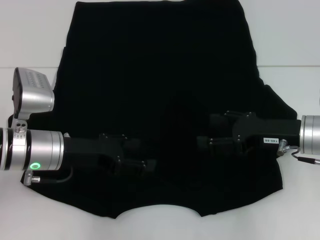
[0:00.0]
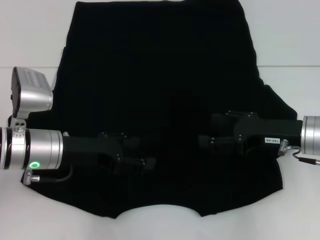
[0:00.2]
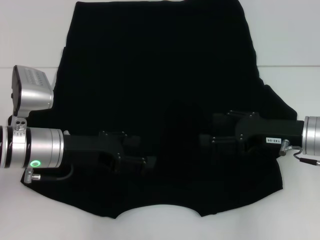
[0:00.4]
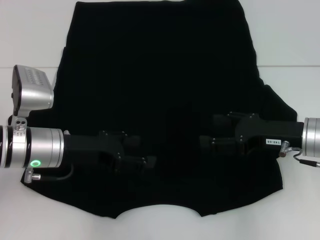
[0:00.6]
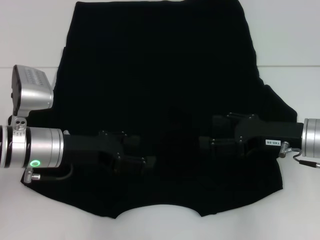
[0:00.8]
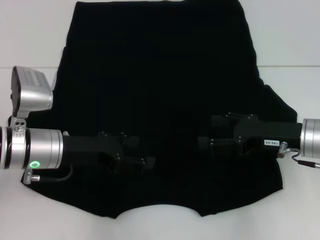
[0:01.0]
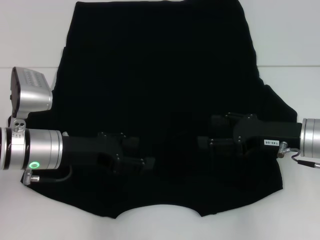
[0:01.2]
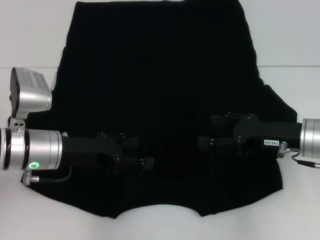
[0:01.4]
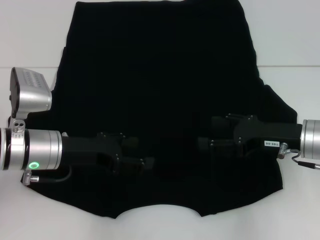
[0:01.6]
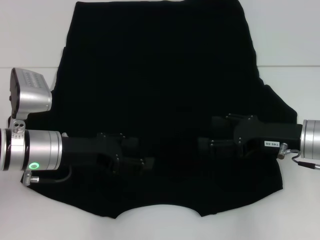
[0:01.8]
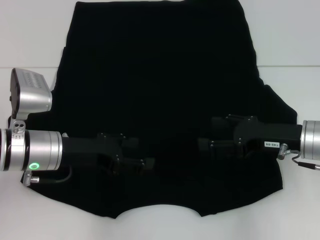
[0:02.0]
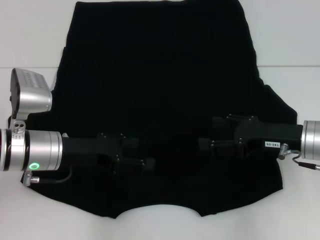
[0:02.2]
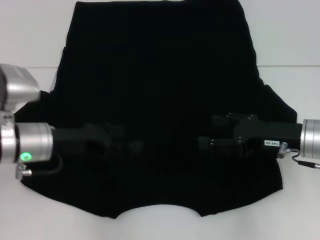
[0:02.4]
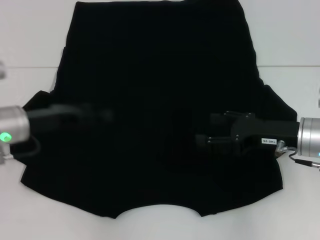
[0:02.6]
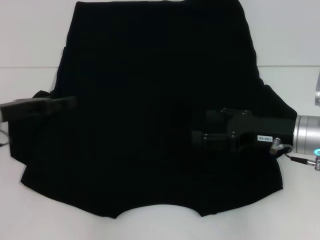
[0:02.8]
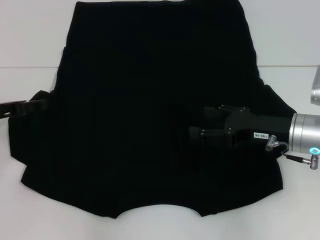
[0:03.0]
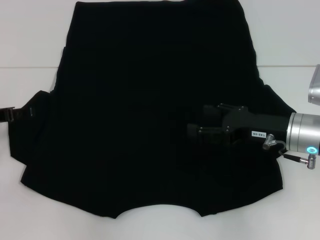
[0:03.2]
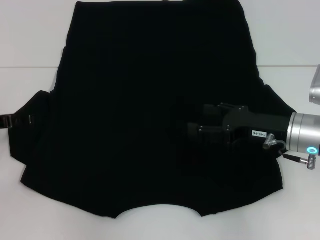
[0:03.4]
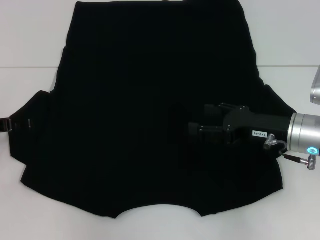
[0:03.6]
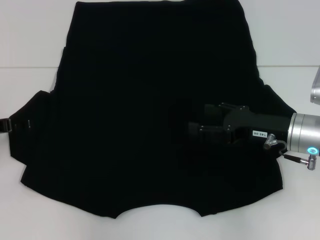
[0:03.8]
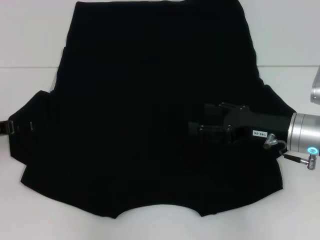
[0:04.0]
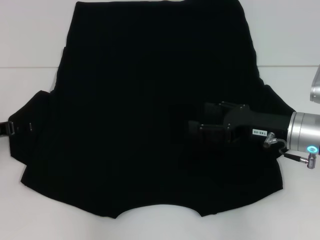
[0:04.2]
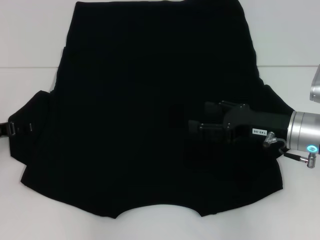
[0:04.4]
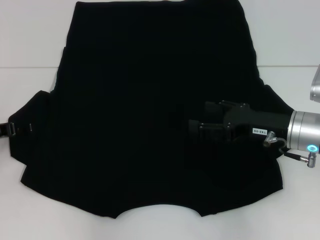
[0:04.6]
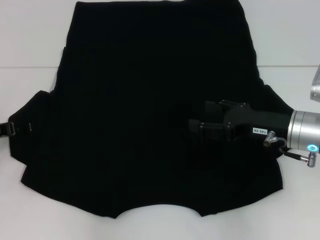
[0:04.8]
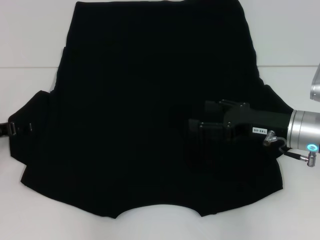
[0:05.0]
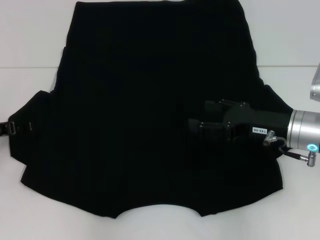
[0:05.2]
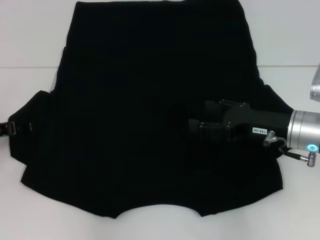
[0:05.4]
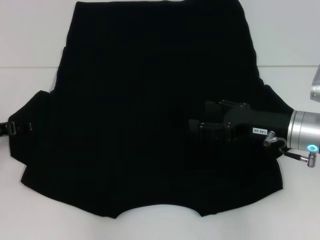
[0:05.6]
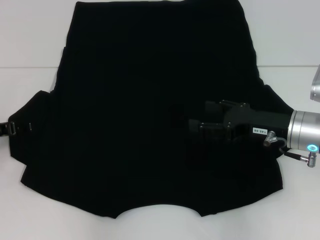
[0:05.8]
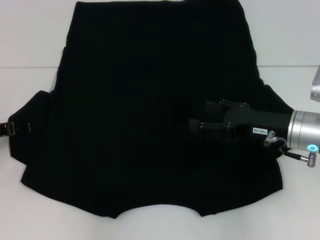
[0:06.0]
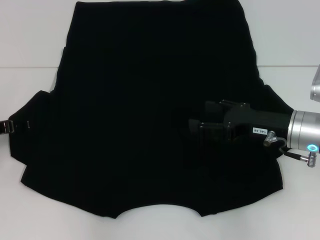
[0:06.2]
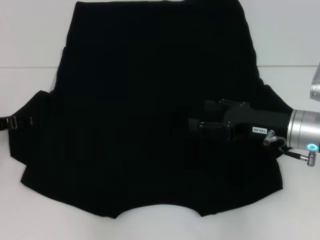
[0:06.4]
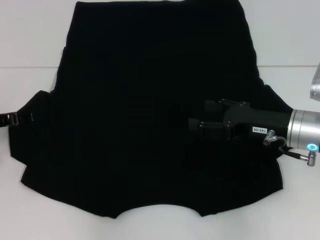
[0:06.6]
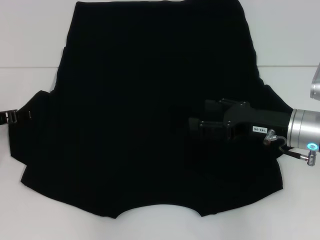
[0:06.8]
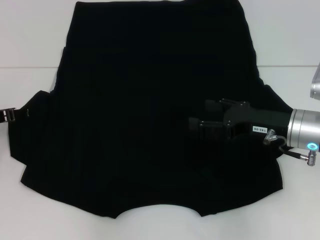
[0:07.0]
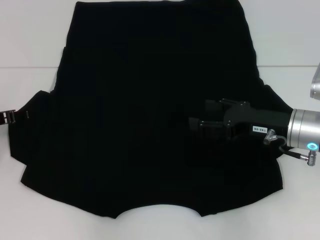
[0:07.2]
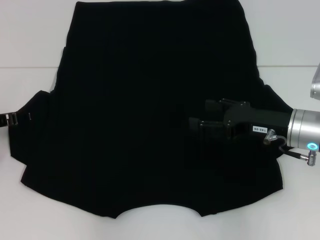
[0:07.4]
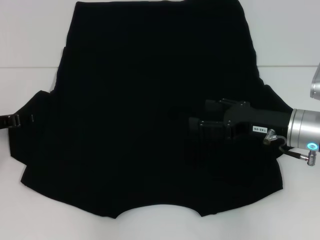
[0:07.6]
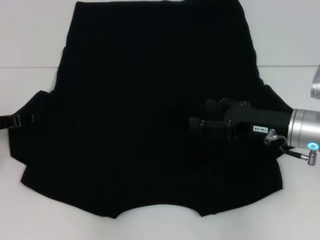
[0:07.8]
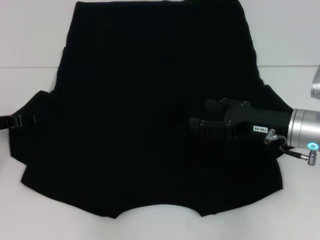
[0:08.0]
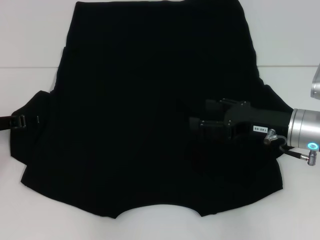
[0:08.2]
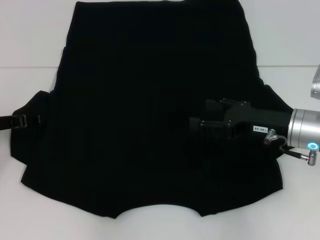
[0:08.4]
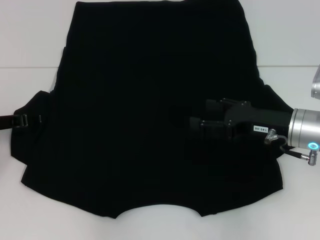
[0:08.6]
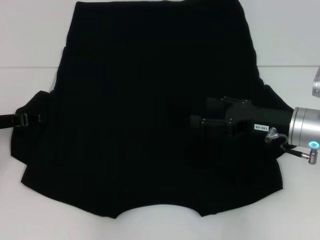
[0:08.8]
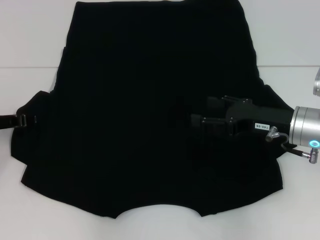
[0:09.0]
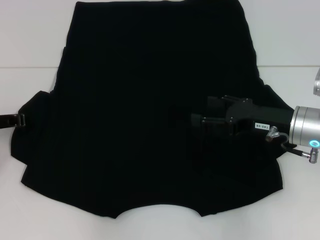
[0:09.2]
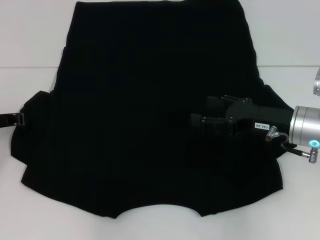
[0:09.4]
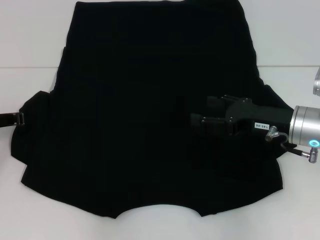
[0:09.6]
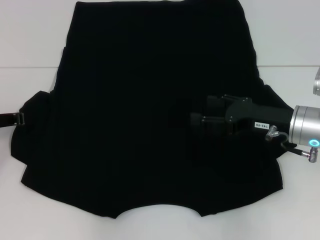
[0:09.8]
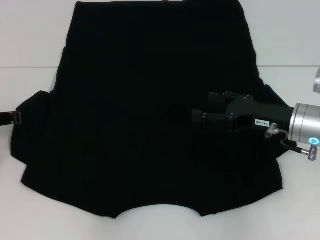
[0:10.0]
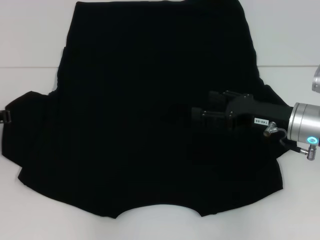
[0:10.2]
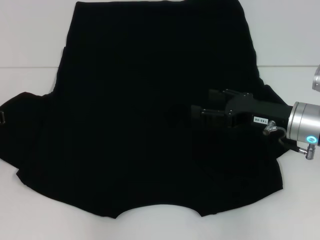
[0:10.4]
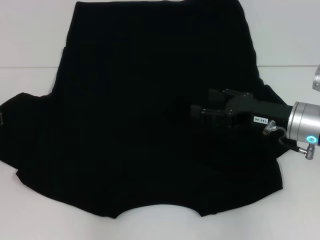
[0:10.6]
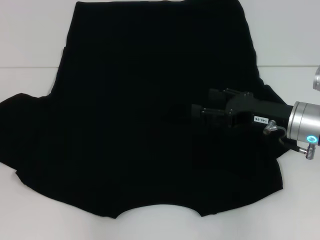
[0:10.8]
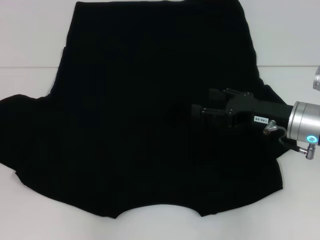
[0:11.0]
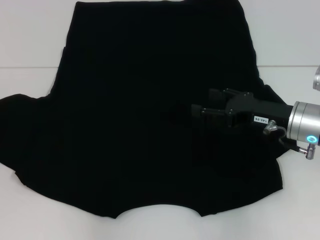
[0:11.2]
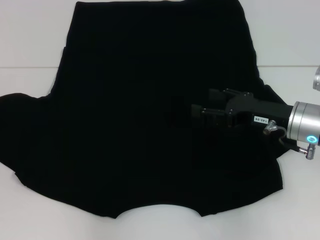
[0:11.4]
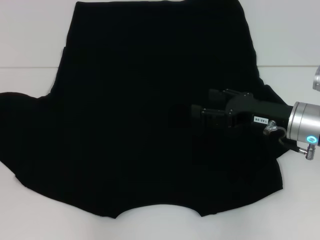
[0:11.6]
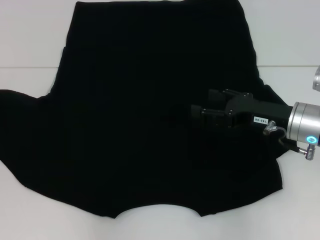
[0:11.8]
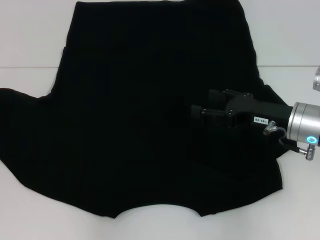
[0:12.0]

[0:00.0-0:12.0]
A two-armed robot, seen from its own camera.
0:00.0 to 0:01.6: The two grippers keep their place.
0:01.6 to 0:03.0: The left gripper shifts some 10 cm to the left.
0:03.0 to 0:04.4: There are only small adjustments of the grippers.
0:04.4 to 0:06.0: The two grippers keep their place.
0:06.0 to 0:07.6: The grippers stay close to where they were, moving slightly.
0:07.6 to 0:09.0: Neither gripper changes place.
0:09.0 to 0:10.4: The left gripper closes its fingers.

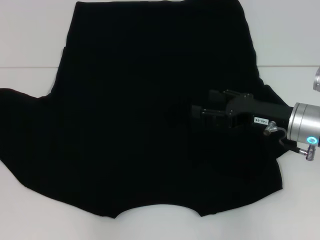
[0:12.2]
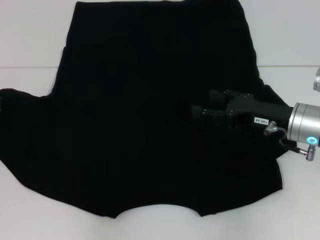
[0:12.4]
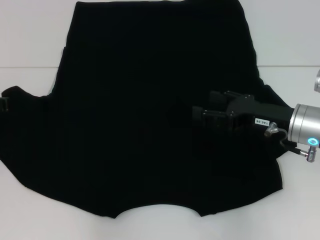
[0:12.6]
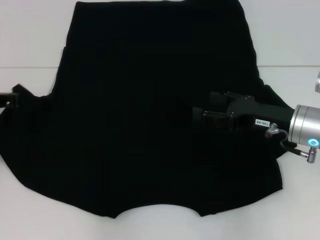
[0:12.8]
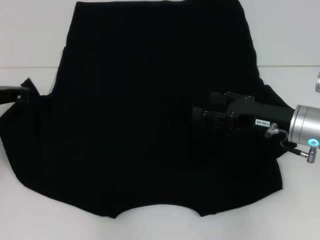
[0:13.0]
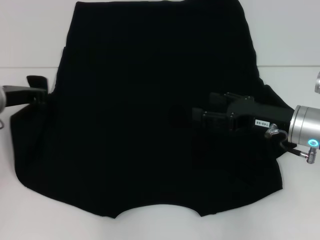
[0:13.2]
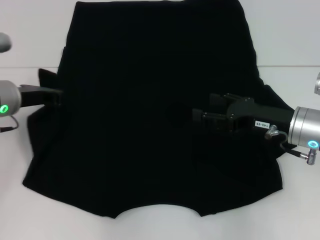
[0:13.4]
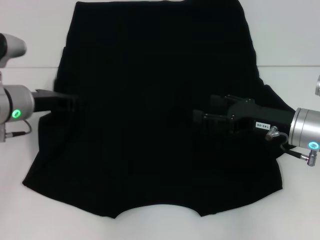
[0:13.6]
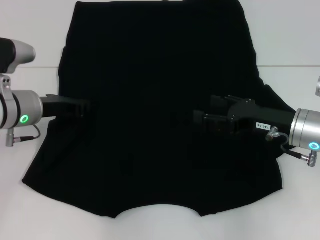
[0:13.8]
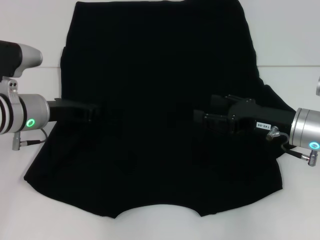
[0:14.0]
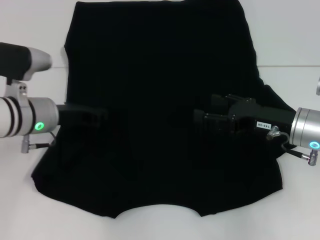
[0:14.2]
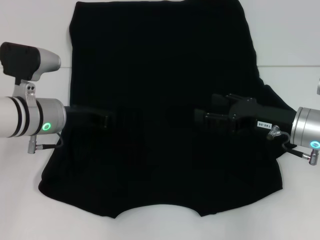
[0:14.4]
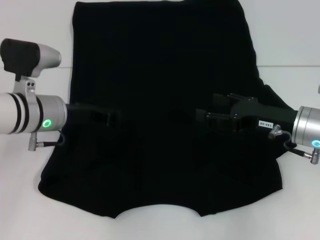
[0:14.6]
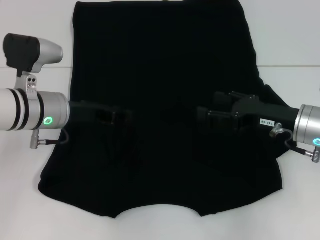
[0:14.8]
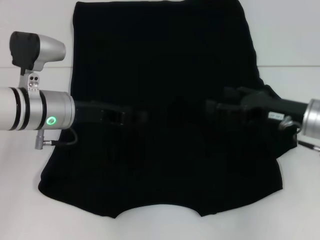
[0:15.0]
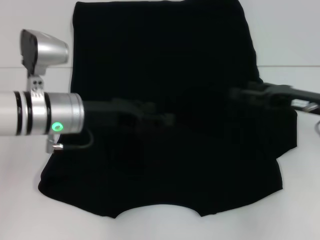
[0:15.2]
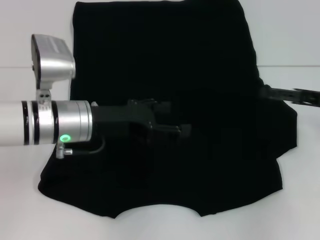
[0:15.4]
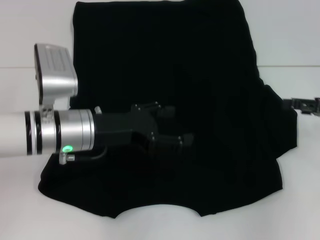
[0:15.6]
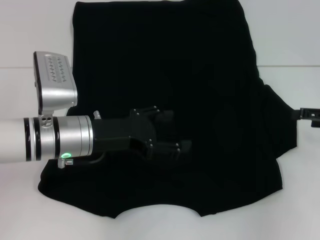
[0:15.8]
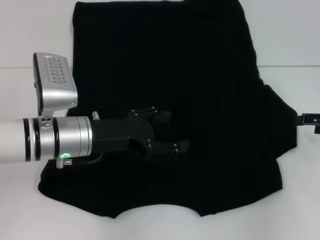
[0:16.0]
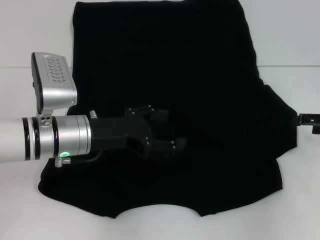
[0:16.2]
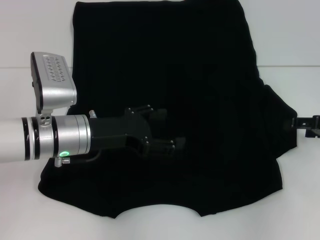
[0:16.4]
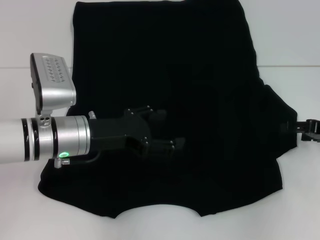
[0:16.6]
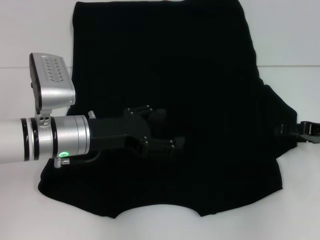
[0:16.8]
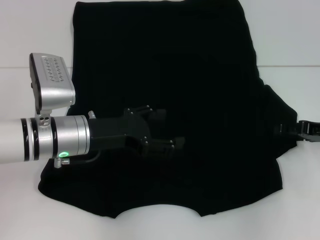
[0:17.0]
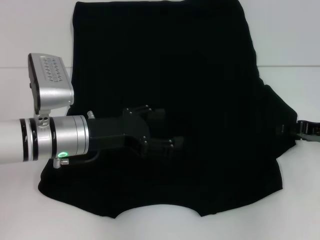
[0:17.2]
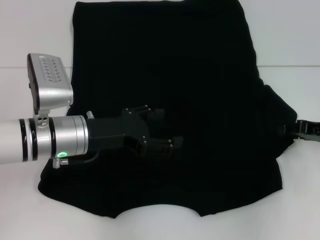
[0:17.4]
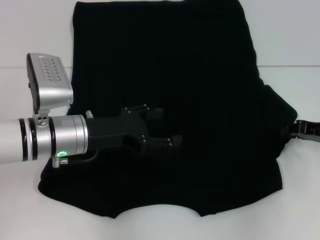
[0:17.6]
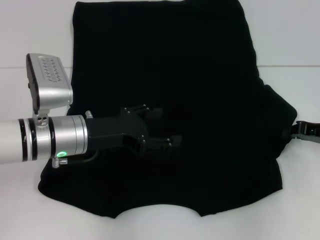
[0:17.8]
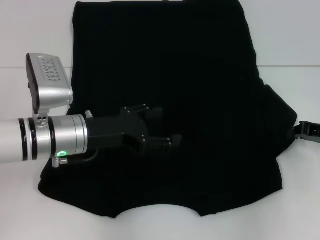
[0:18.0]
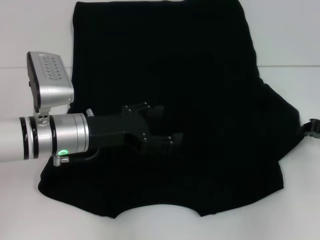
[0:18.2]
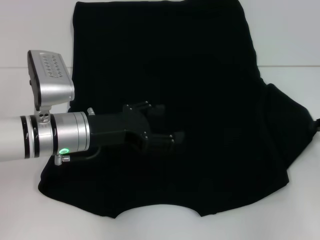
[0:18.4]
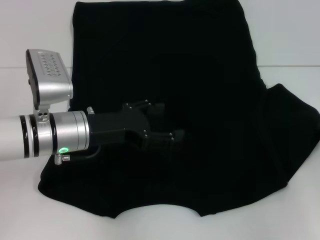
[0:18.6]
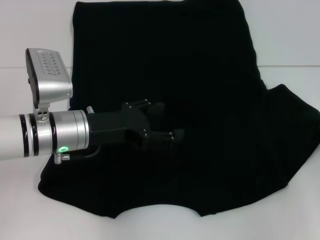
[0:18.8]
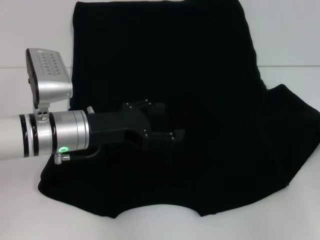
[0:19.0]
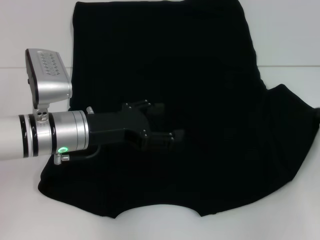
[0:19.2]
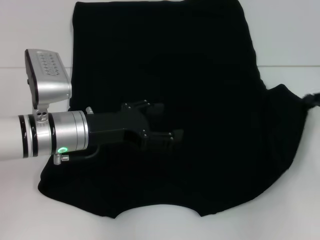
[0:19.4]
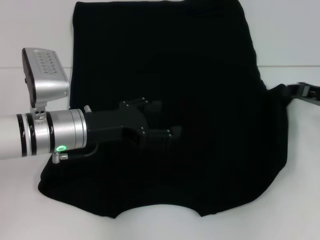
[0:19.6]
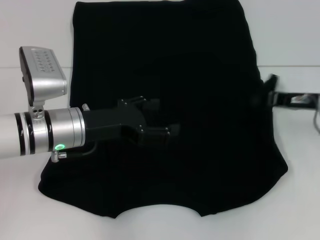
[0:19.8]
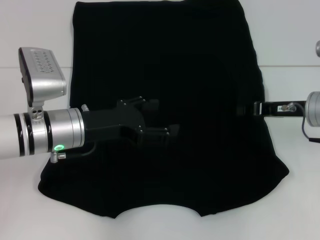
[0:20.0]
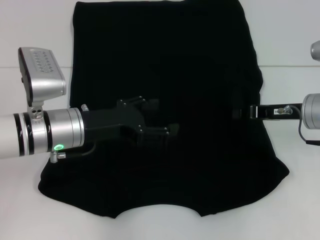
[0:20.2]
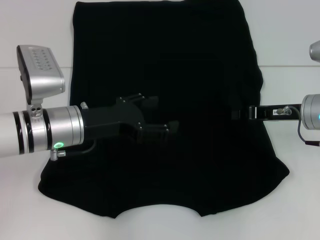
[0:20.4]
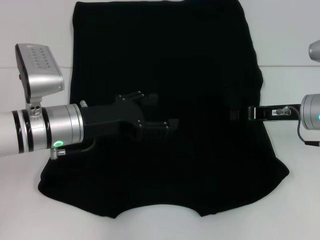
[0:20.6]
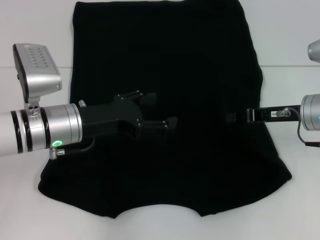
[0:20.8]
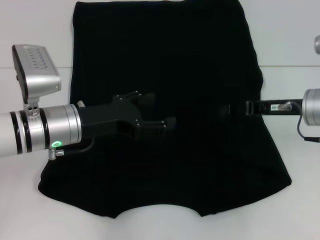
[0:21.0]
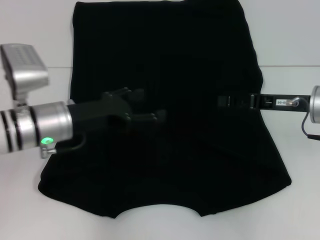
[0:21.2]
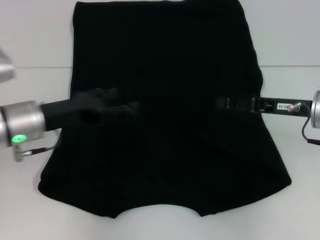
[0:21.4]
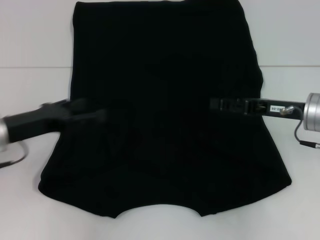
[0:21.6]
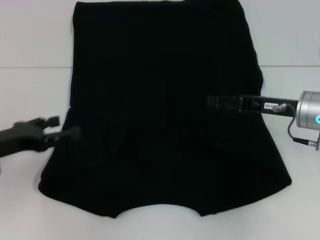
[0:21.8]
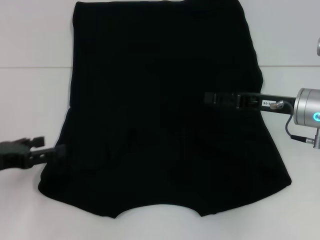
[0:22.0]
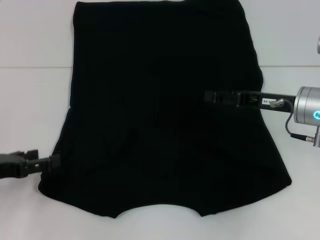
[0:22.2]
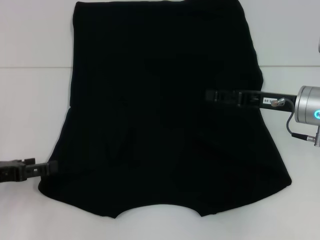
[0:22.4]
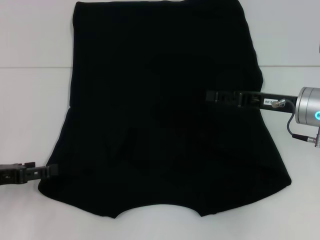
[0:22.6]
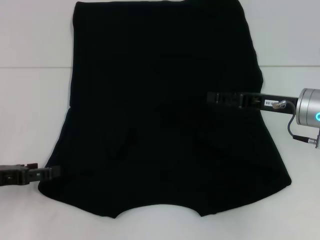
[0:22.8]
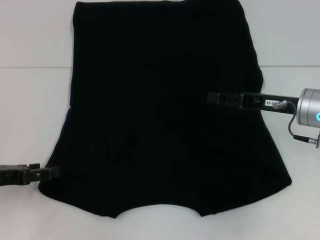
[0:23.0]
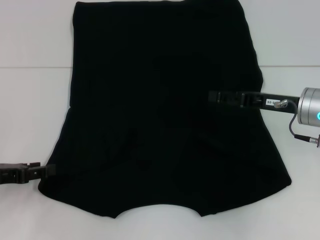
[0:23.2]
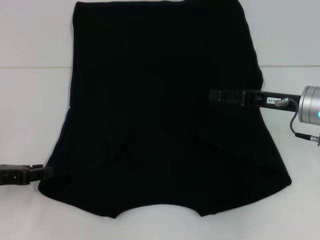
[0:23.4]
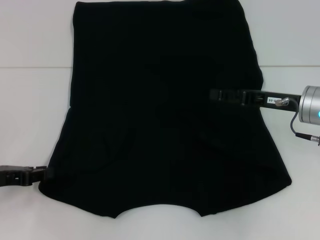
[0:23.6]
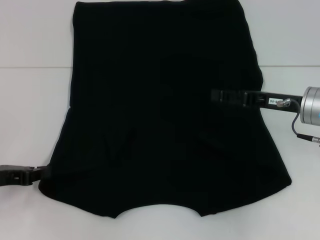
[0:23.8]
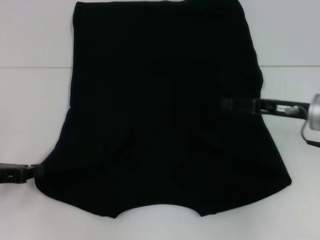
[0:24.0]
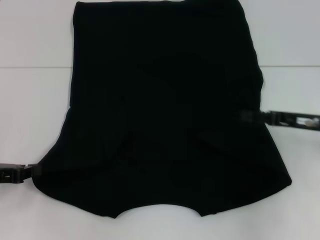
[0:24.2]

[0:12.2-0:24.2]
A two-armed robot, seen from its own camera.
Step, 0:12.2 to 0:14.8: Fold the bottom left sleeve with your left hand.
Step, 0:15.0 to 0:20.8: Fold the bottom right sleeve with your right hand.
0:12.2 to 0:13.8: The left gripper shifts roughly 10 cm to the right.
0:13.8 to 0:15.2: Both grippers travel together to the right, some 5 cm. The left gripper opens.
0:15.2 to 0:16.6: The right gripper moves to the right, about 5 cm; the left gripper opens its fingers.
0:16.6 to 0:18.2: The right gripper closes.
0:18.2 to 0:19.8: The right gripper shifts roughly 5 cm to the left.
0:19.8 to 0:21.2: There are only small adjustments of the grippers.
0:21.2 to 0:22.6: The right gripper opens its fingers; the left gripper moves to the left and backward, roughly 15 cm.
0:22.6 to 0:24.2: The left gripper closes its fingers. Meanwhile the right gripper heads to the right, covering approximately 5 cm.
